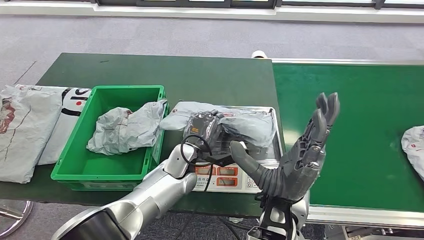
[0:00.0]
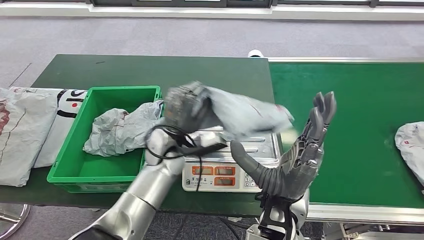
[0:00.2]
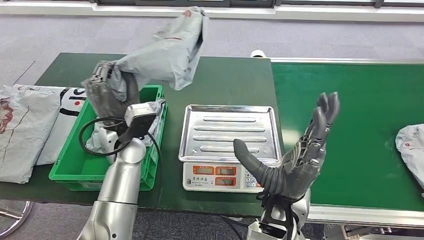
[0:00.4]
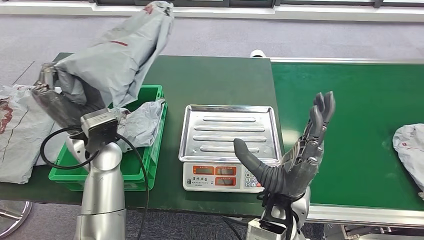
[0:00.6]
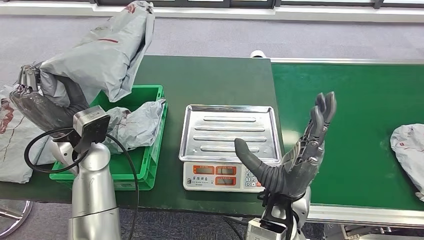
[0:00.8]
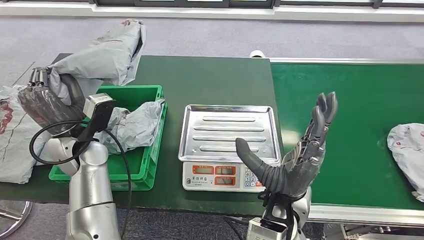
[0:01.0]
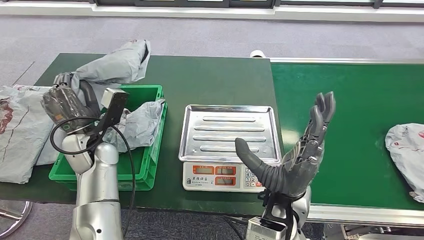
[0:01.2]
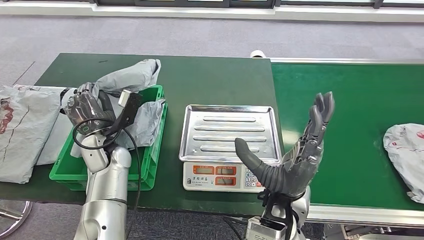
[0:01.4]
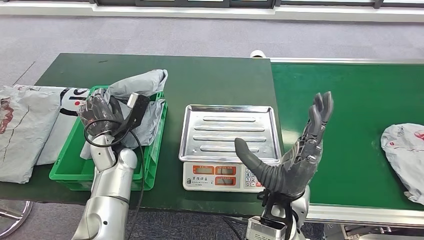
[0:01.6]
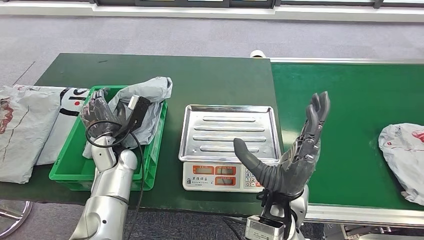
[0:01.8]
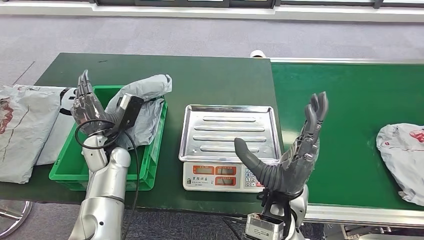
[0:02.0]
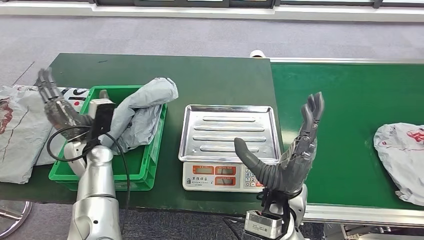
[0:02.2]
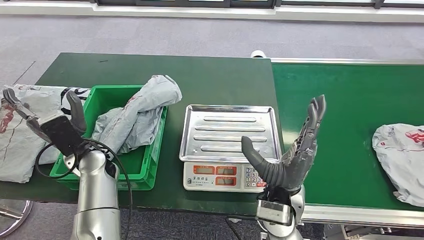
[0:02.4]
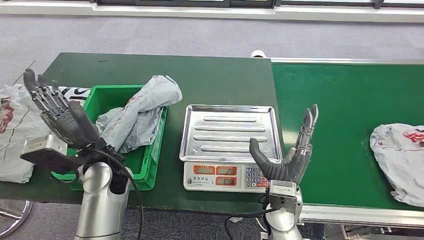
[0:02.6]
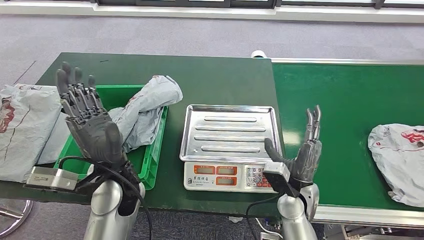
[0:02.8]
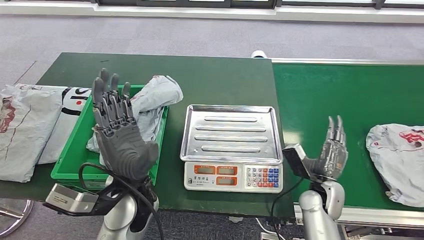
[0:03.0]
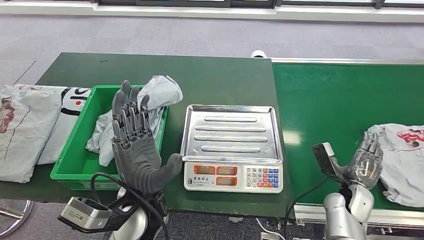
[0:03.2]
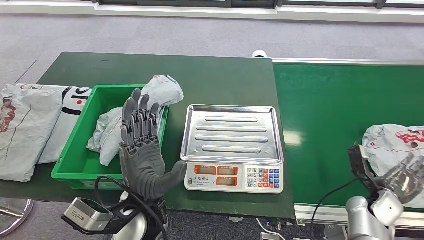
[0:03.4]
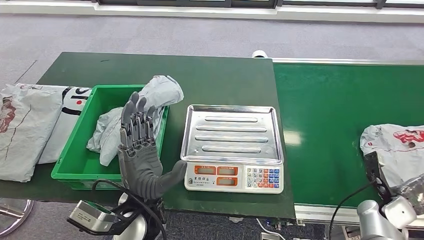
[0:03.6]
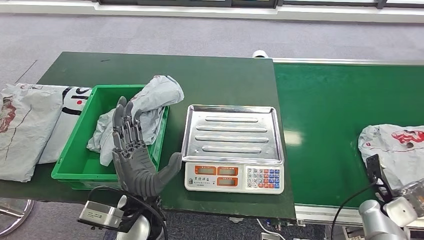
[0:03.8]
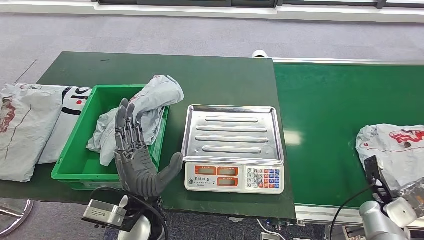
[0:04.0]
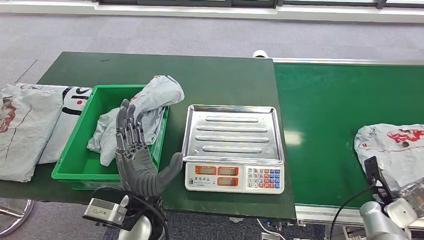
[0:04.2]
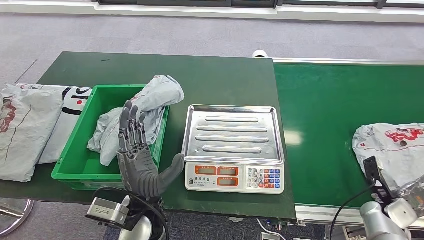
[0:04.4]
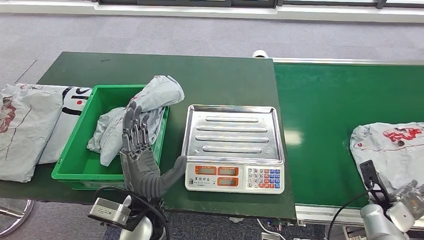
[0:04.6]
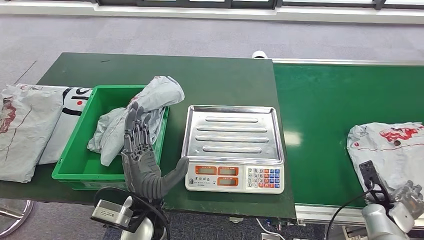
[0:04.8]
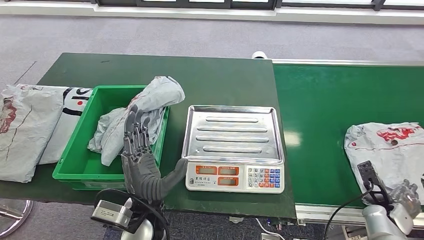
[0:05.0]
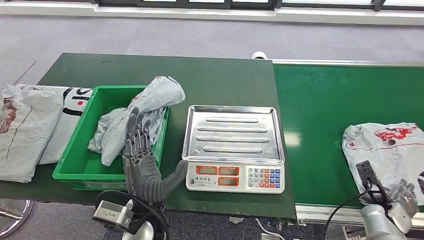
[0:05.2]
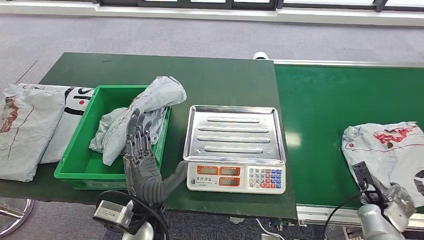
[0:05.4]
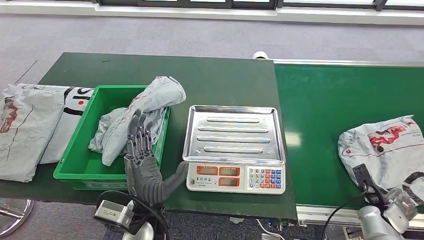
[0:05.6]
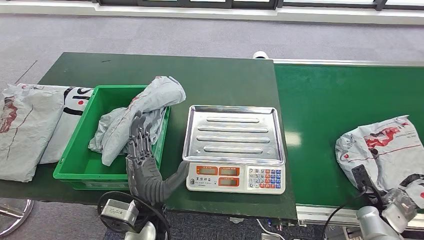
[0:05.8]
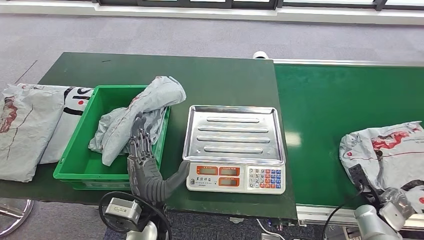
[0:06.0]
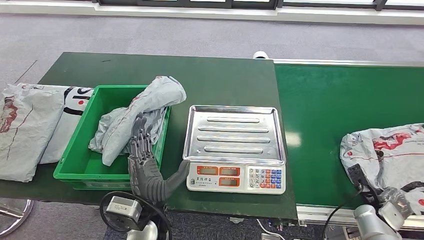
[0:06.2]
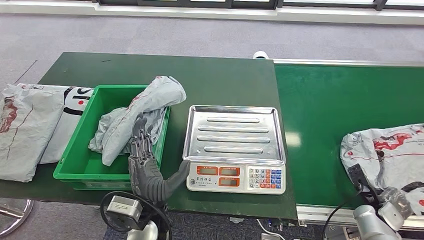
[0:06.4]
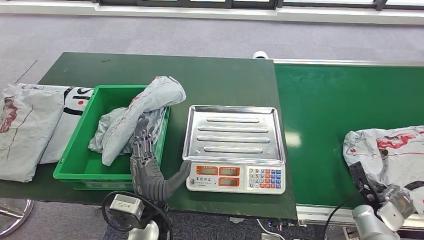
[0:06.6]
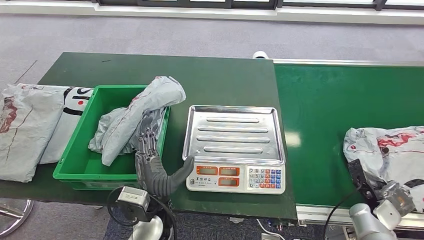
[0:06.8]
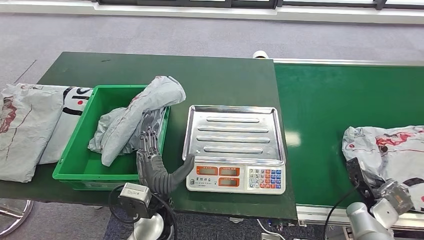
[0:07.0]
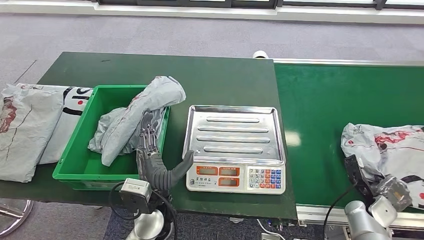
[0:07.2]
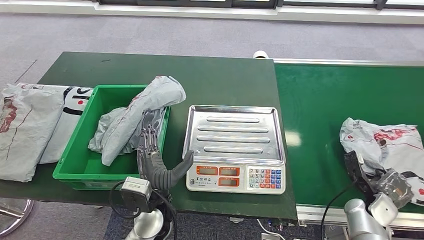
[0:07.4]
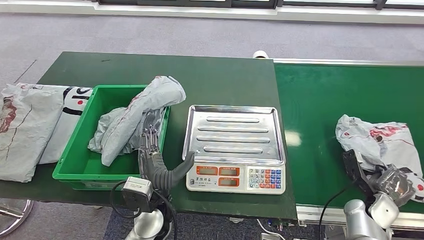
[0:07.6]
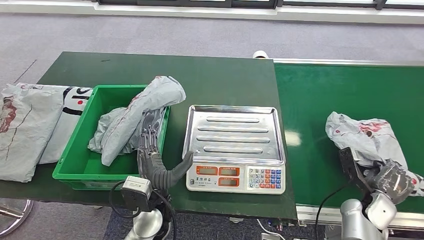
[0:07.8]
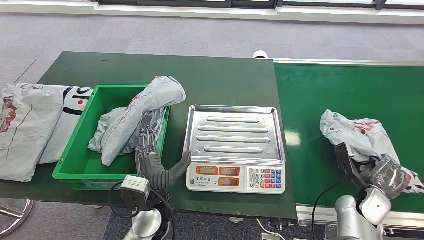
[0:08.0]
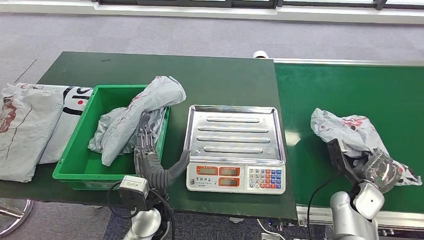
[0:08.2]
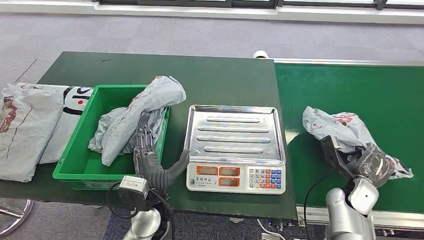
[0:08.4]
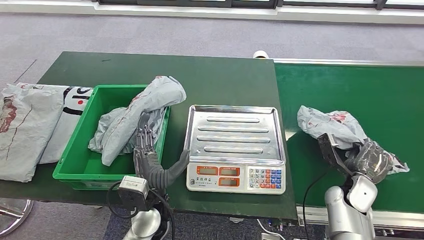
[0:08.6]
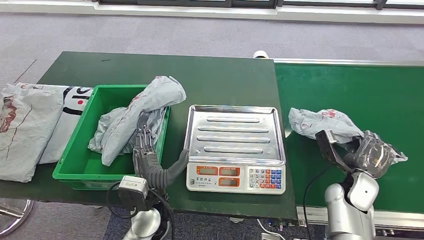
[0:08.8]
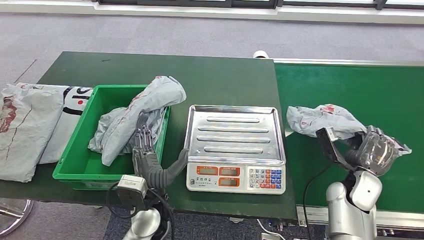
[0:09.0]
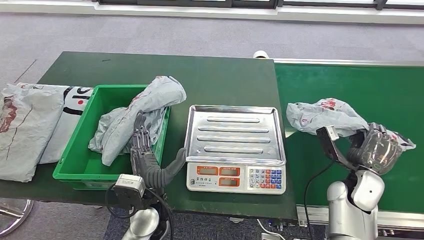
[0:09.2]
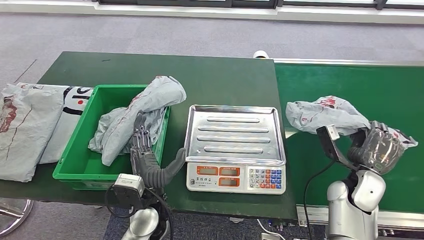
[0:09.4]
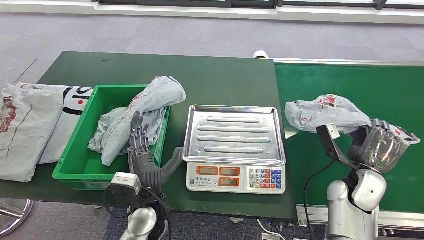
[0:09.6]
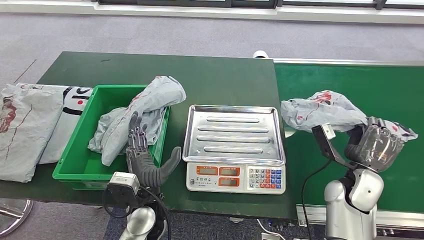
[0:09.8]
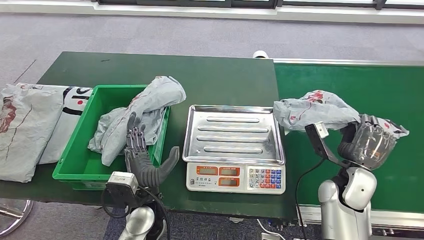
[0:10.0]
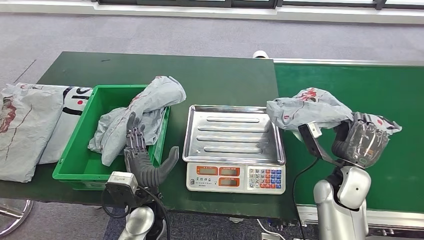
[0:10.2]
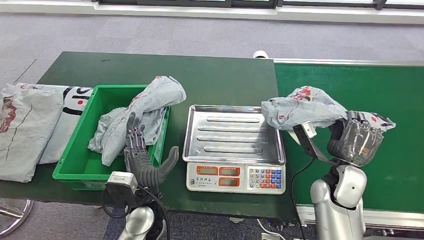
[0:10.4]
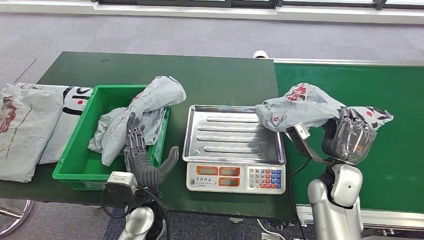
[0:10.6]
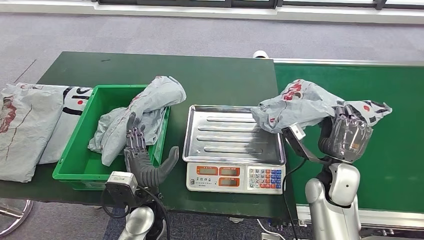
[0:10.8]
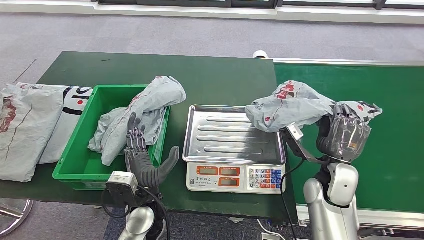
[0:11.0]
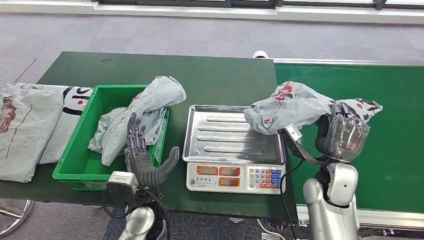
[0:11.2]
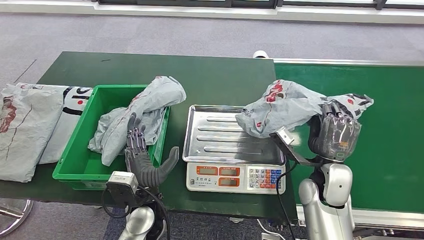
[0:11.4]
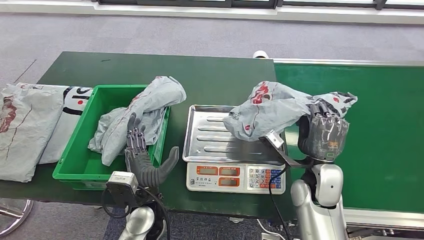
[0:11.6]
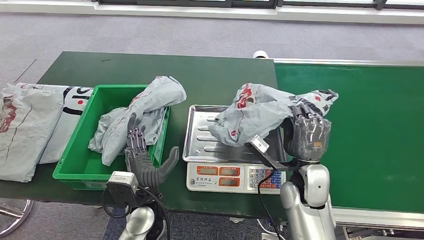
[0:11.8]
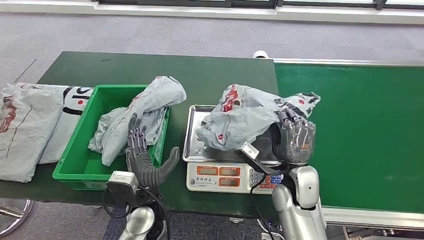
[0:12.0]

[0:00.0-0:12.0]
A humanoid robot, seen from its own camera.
Step, 0:01.0 to 0:03.2: Place the parcel into the delivery box.
Step, 0:07.4 to 0:09.2: Pick up the parcel from the conveyor belt.
0:04.4 to 0:06.0: The hands stay close to where they were, moving slightly.
0:07.6 to 0:09.0: The right hand shifts about 10 cm upward and to the left.
0:09.0 to 0:10.4: The right hand moves to the left, approximately 5 cm.
0:10.4 to 0:12.0: The right hand moves to the left, approximately 10 cm.

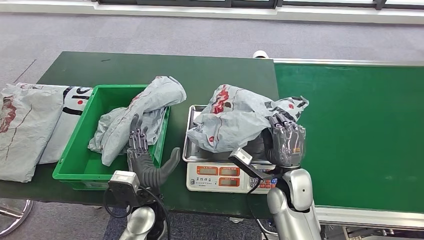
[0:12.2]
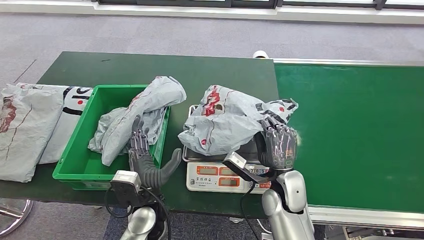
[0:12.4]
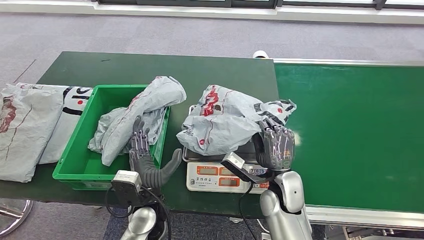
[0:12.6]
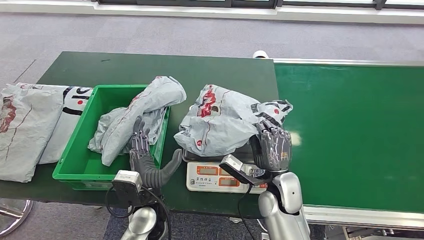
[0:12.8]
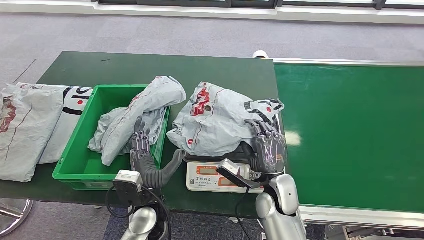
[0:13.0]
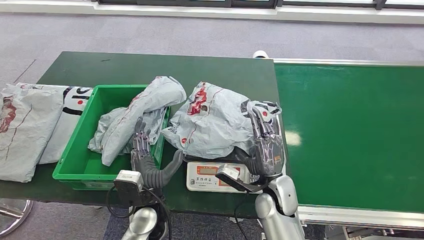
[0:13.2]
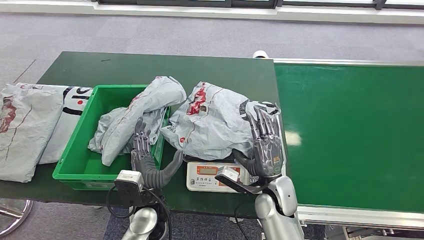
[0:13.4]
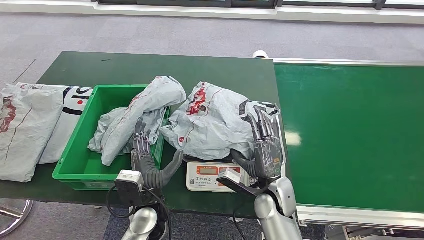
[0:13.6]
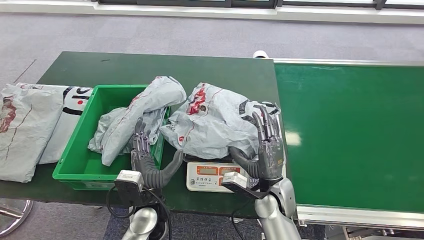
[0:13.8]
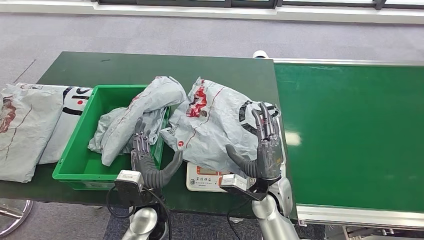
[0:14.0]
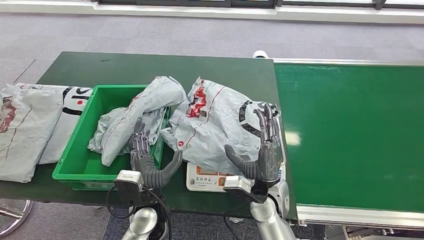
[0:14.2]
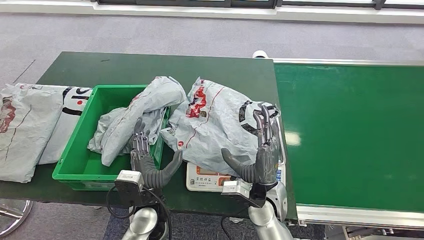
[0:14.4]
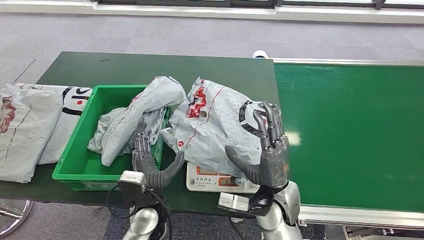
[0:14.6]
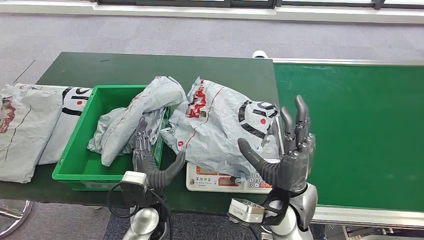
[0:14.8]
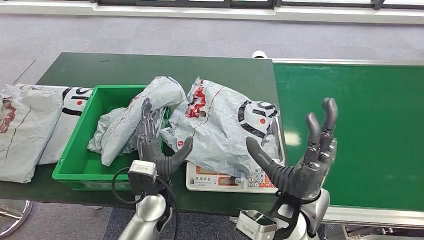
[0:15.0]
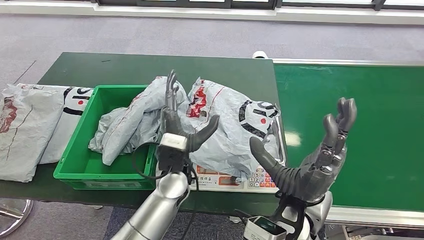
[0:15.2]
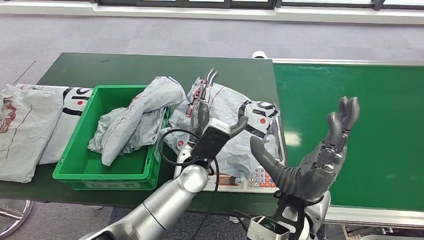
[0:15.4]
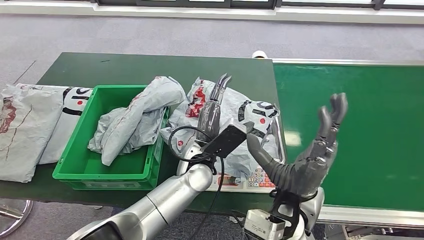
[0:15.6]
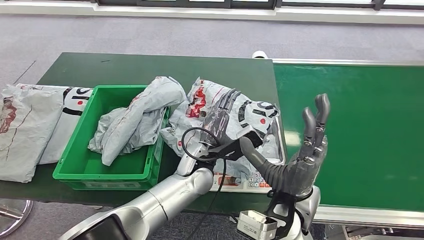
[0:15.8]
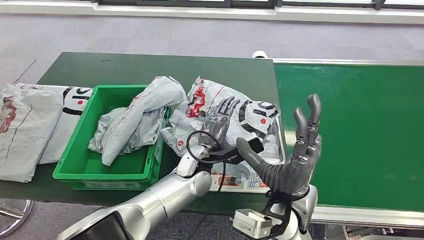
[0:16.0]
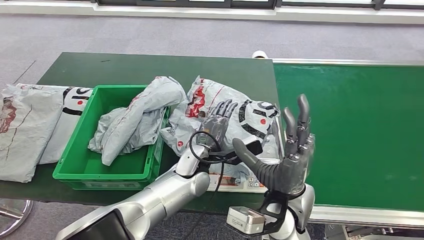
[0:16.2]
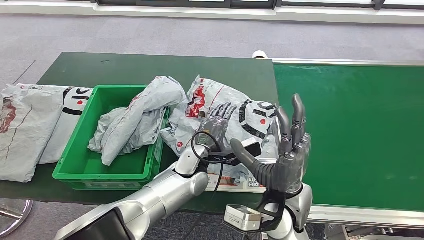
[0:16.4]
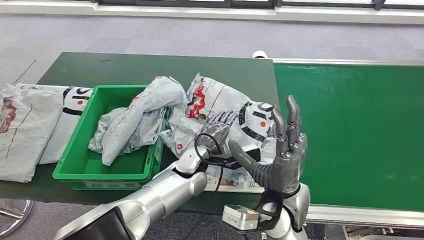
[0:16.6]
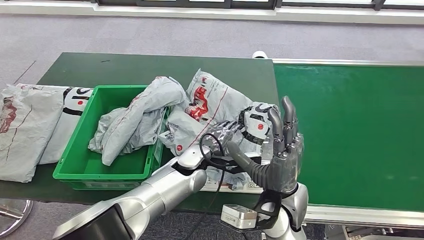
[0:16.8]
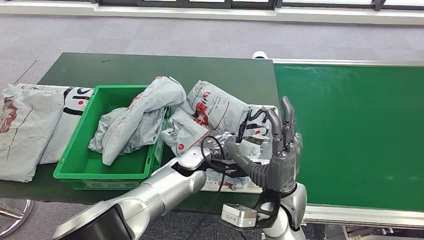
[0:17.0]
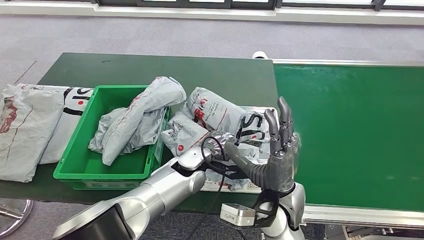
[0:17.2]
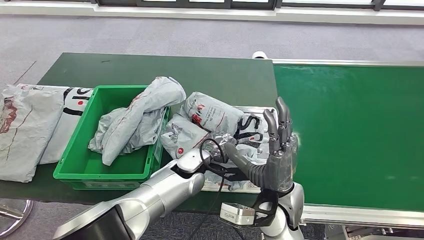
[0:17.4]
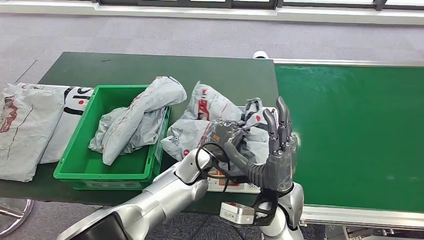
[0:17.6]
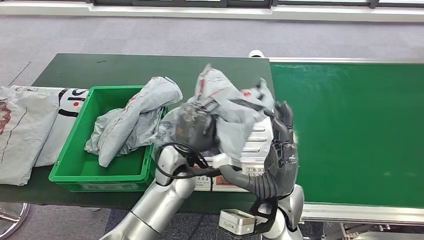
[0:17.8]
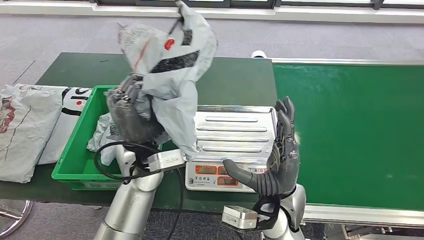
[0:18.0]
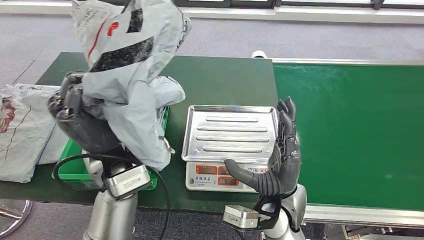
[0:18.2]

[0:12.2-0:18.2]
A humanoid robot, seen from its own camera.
0:12.2 to 0:13.8: The right hand moves some 5 cm.
0:15.2 to 0:16.6: The left hand ends up some 5 cm from where it was.
